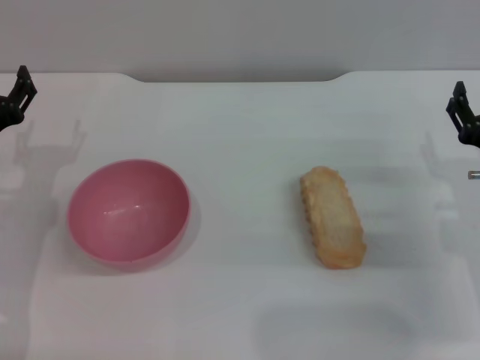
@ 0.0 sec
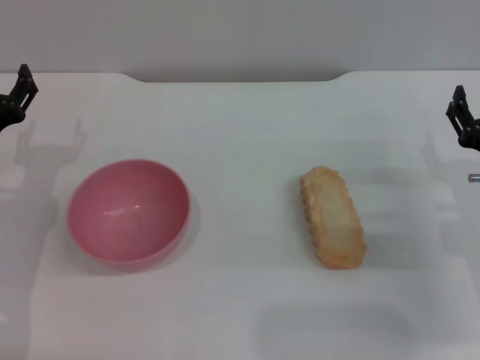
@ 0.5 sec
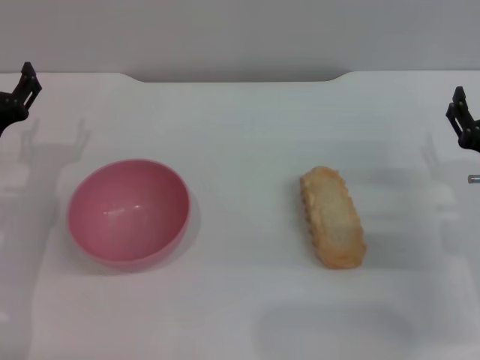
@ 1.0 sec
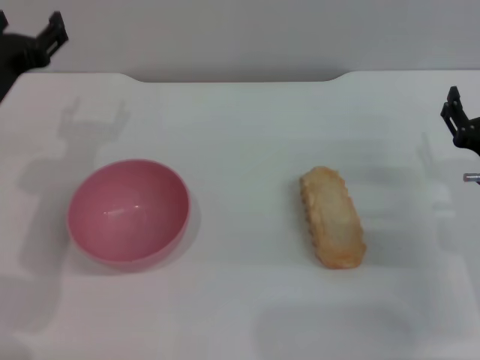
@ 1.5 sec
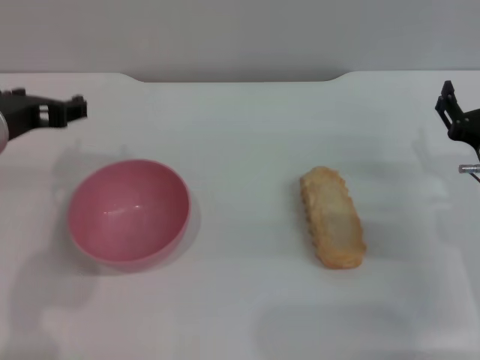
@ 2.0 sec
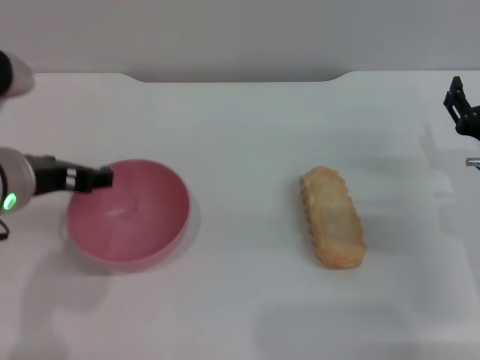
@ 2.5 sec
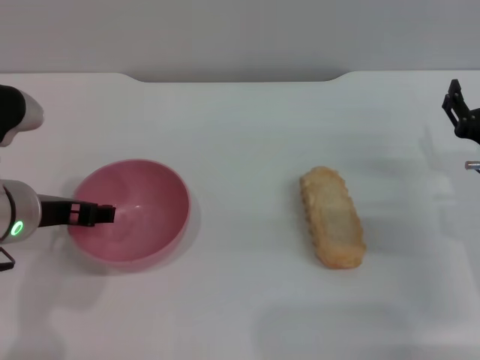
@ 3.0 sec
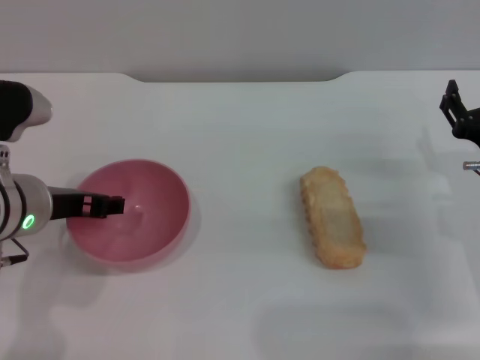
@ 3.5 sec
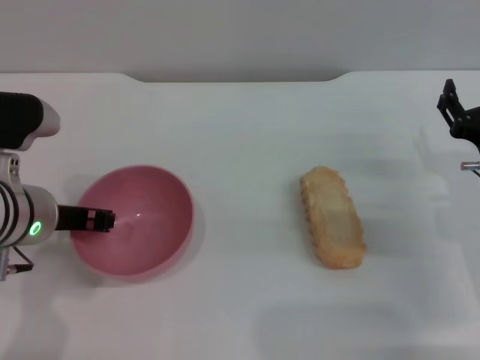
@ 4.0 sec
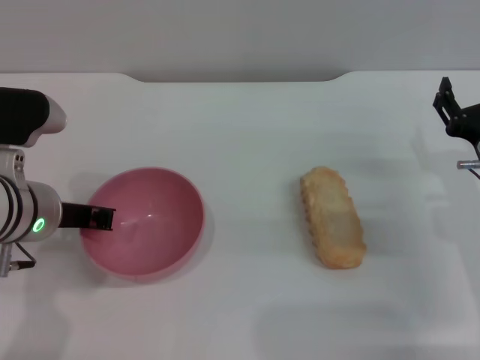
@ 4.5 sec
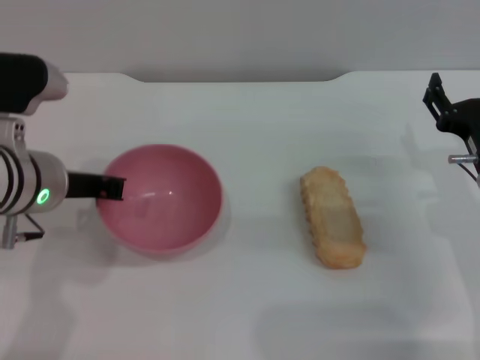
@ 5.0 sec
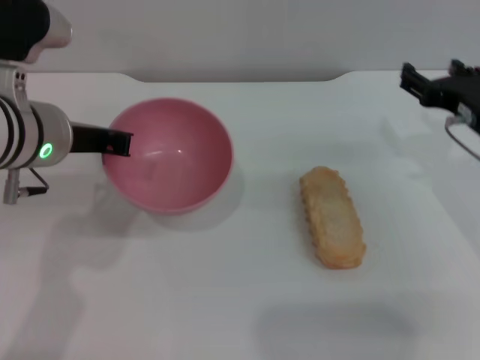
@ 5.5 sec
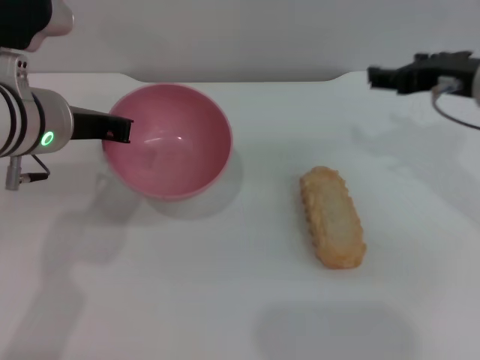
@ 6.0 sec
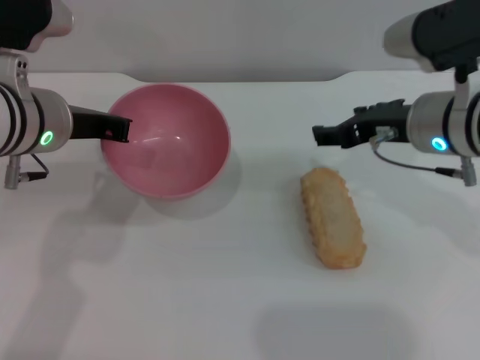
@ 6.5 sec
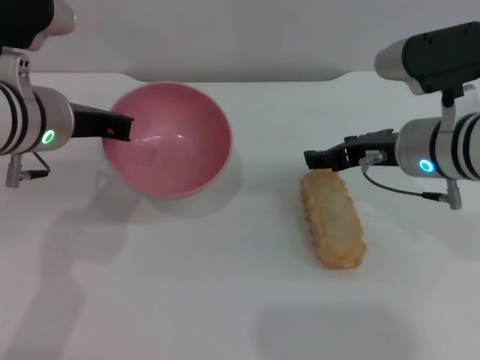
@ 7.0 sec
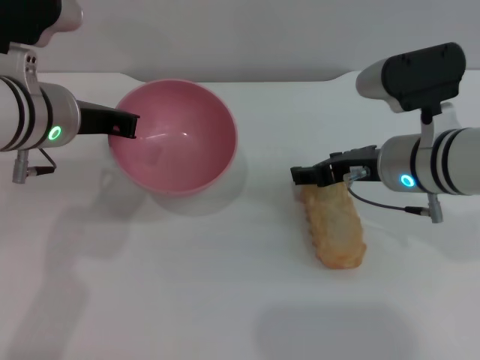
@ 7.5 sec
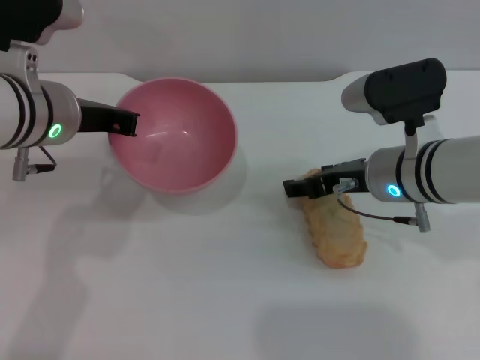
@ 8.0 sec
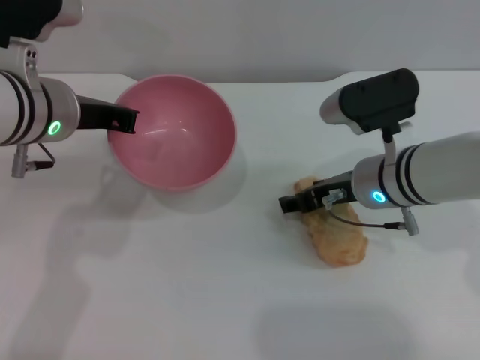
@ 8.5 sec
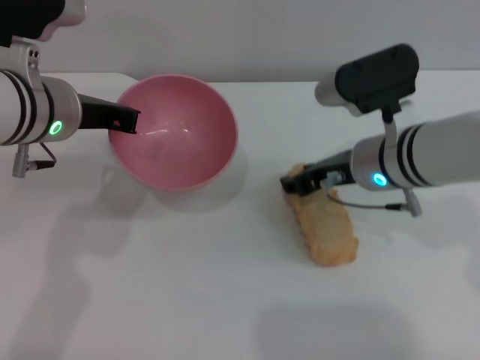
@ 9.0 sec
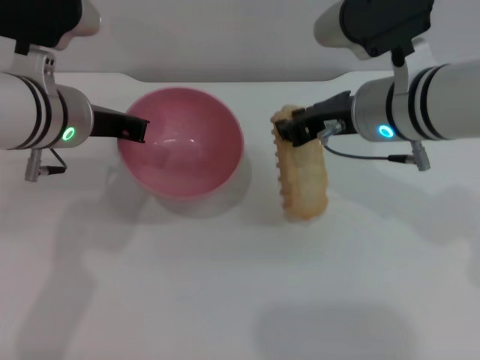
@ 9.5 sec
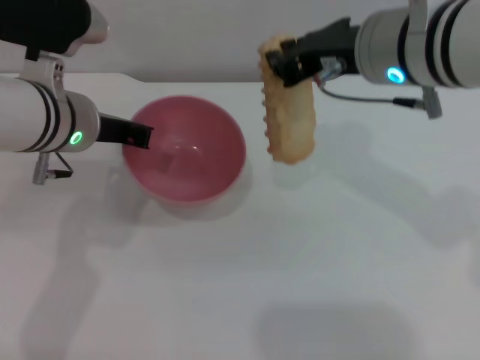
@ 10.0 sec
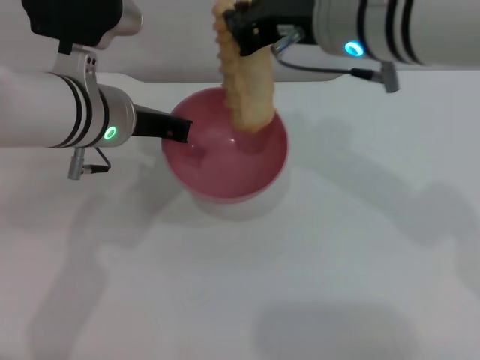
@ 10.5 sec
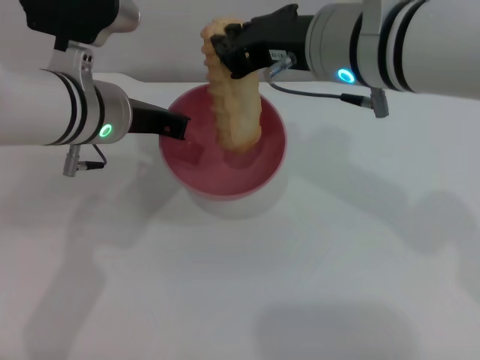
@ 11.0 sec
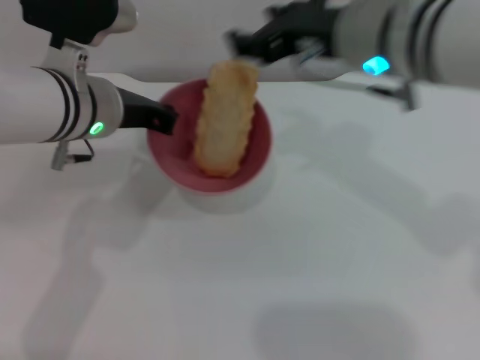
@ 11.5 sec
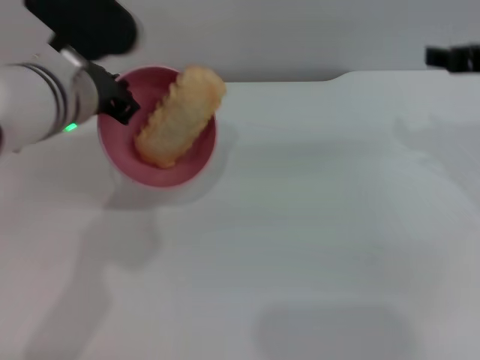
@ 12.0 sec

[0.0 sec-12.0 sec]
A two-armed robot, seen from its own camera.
Task of the whole recording: put the bread into the pink bowl and pour it out repeatedly.
Step, 0.0 sec to 5.0 sec: Pick up the bowl with the left gripper.
Step, 6.0 sec to 9.5 sec: Pick up the bread with the right gripper.
Step, 10.0 sec to 11.5 sec: Place the bread into the bowl.
0.0 sec to 2.0 sec: The left gripper is displaced upward and to the right by roughly 15 cm.
2.0 sec to 4.0 sec: The left gripper is displaced downward by about 5 cm.
4.0 sec to 6.0 sec: The right gripper travels upward by about 15 cm. The left gripper shifts approximately 5 cm upward, and closes up.
6.0 sec to 8.0 sec: The right gripper is displaced downward and to the left by some 10 cm.
8.0 sec to 10.0 sec: The right gripper moves upward, approximately 15 cm, and closes up.
10.0 sec to 12.0 sec: The right gripper heads to the right, covering about 15 cm, and opens up.

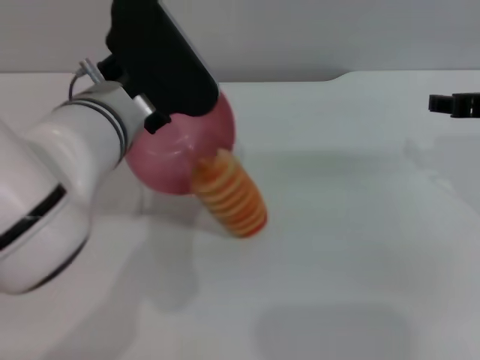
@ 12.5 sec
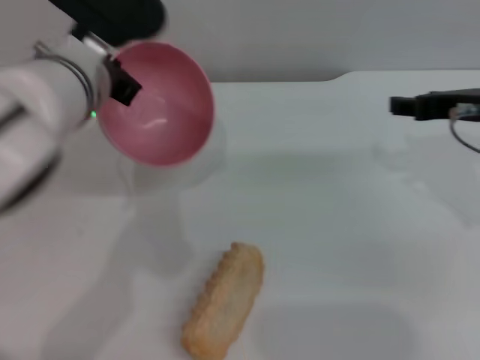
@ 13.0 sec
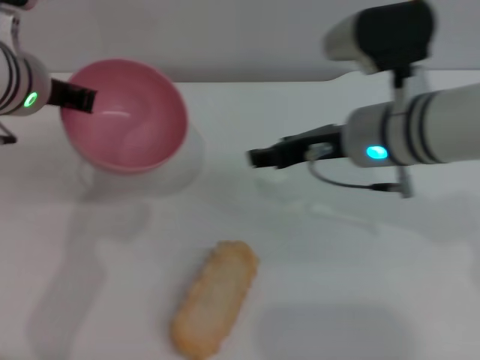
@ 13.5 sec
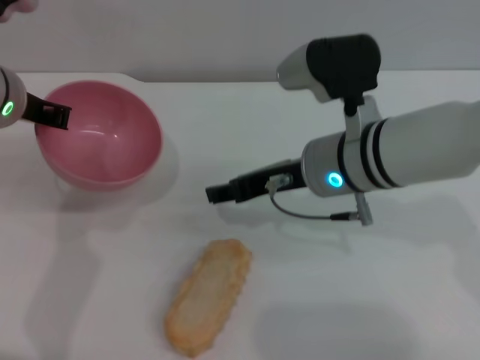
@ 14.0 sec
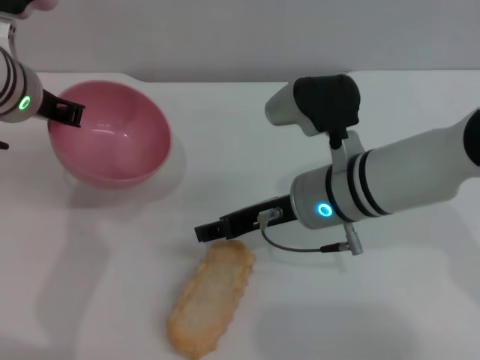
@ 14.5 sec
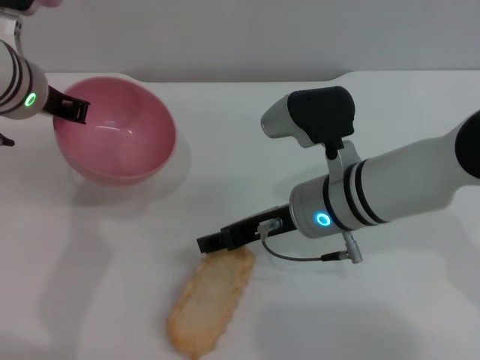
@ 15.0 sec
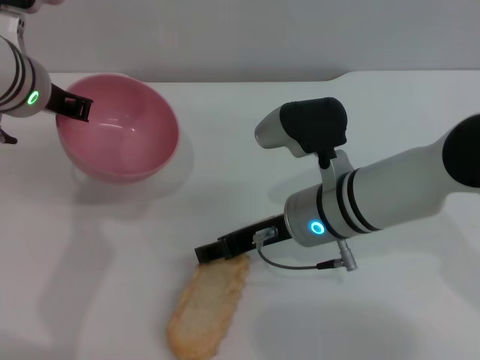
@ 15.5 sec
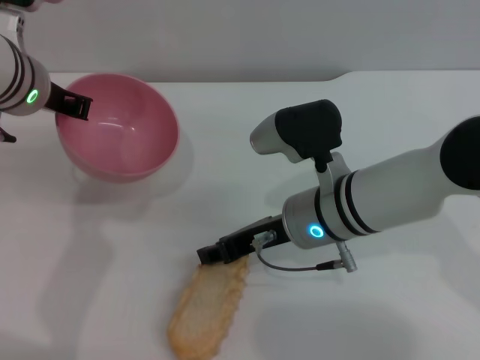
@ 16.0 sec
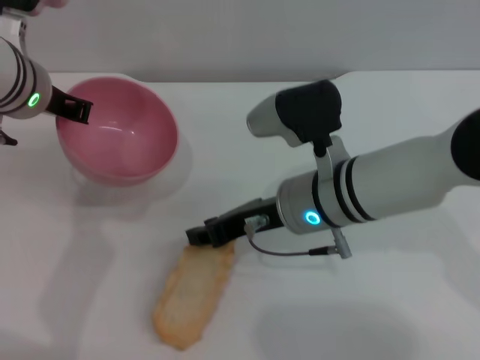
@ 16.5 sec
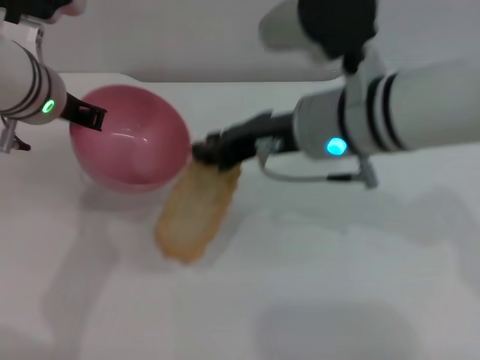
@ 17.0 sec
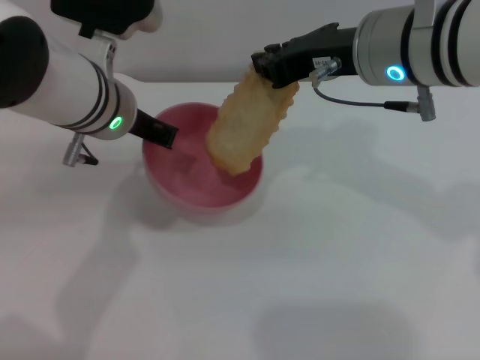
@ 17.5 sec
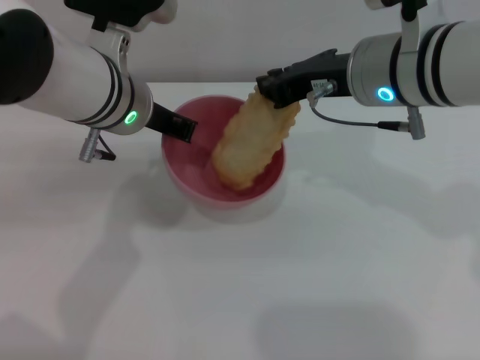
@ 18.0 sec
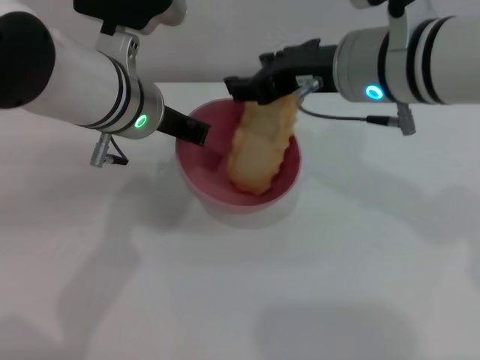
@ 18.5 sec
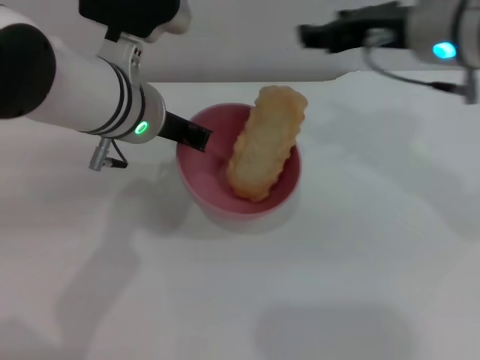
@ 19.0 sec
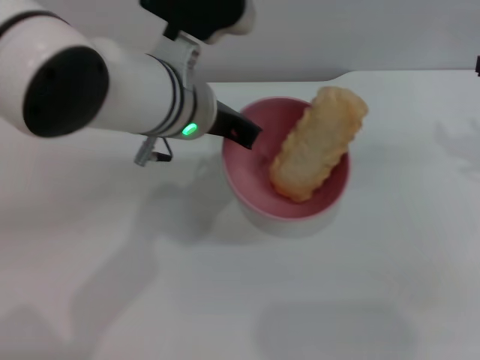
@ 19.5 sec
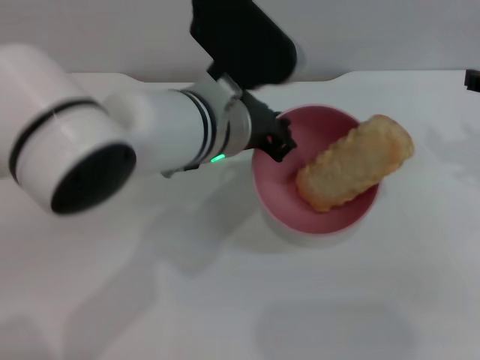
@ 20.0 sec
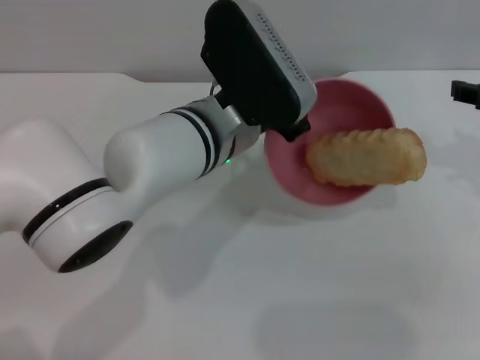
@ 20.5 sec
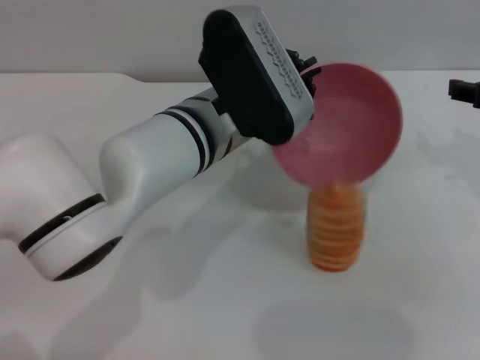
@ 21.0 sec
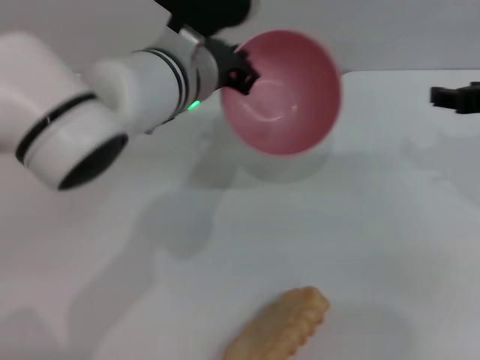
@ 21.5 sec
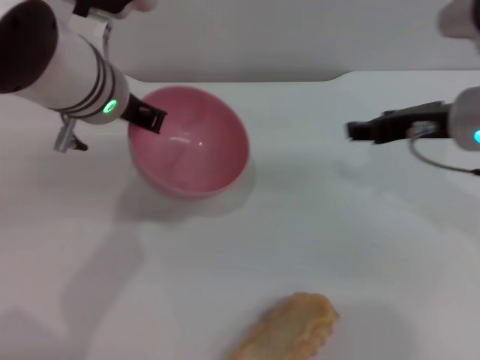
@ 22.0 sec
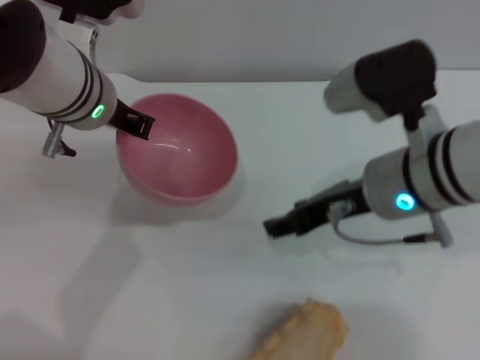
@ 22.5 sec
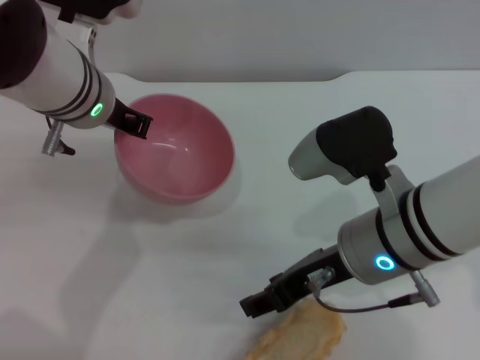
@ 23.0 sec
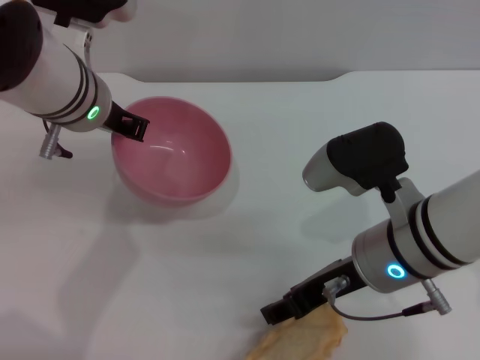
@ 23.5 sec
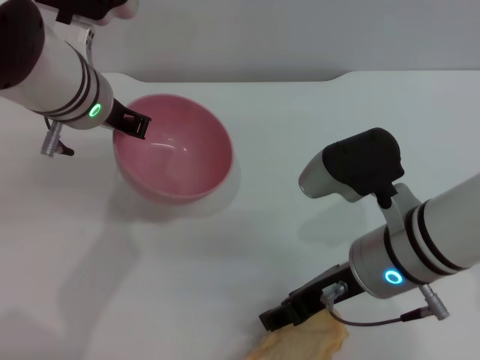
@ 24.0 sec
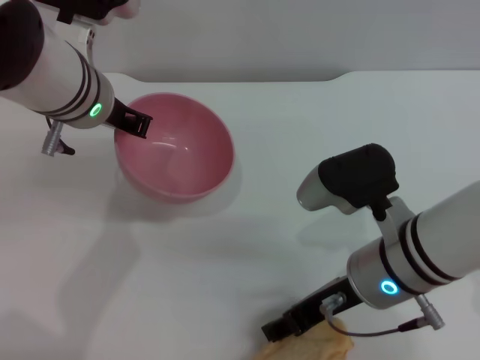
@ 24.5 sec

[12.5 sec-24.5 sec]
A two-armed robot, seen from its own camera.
Task of the whole recording: put the bread into the pink bowl and pour it out repeatedly.
Step, 13.0 sec to 16.5 sec: Pick up the bread with the right gripper.
Step, 17.5 sec to 18.5 sec: Place the bread into the bowl.
Step, 19.0 sec to 21.0 sec: Pour the bread out of the bowl.
12.5 sec to 14.5 sec: The left gripper shifts about 10 cm to the left and forward. Meanwhile the right gripper heads to the left and downward, covering roughly 20 cm.
14.5 sec to 16.5 sec: The right gripper closes up.
16.5 sec to 18.5 sec: The left gripper is displaced to the right by some 10 cm, while the right gripper shifts about 10 cm upward.
18.5 sec to 20.5 sec: The right gripper goes about 20 cm to the right, while the left gripper is displaced to the right by approximately 5 cm.
20.5 sec to 22.5 sec: The left gripper shifts approximately 10 cm to the left. Meanwhile the right gripper heads to the left, covering approximately 15 cm.
22.5 sec to 24.5 sec: The right gripper travels downward by about 5 cm.

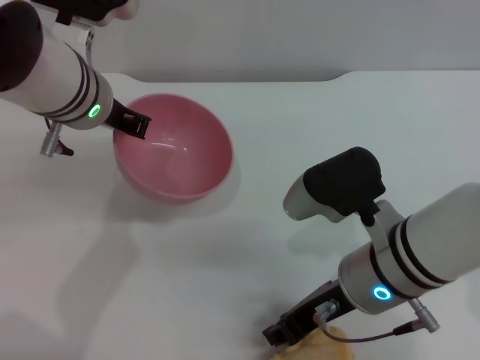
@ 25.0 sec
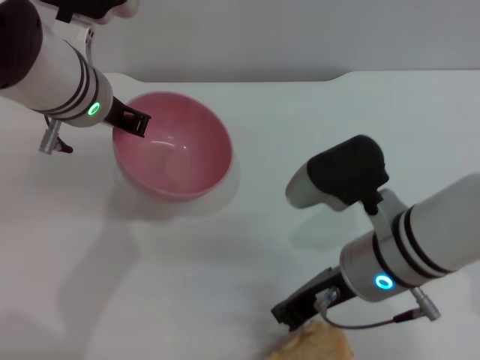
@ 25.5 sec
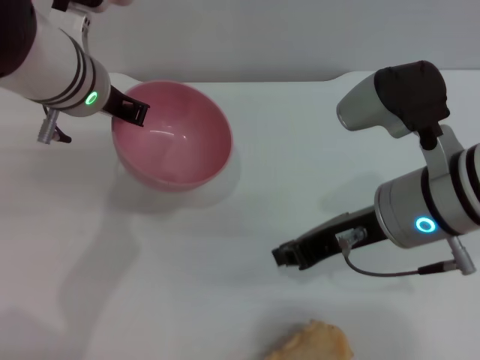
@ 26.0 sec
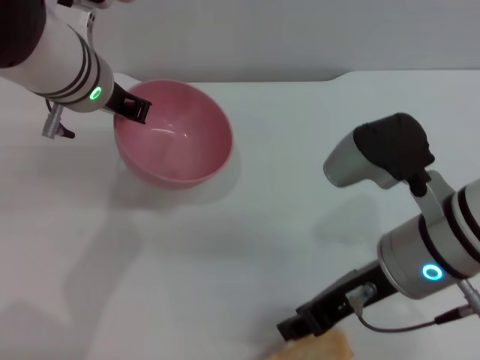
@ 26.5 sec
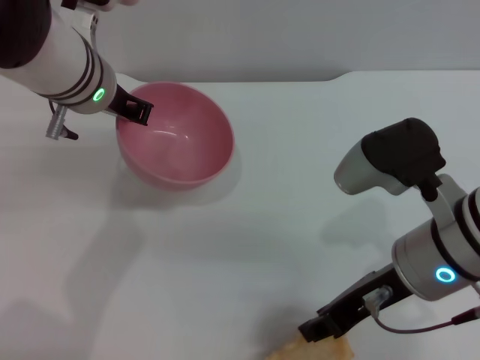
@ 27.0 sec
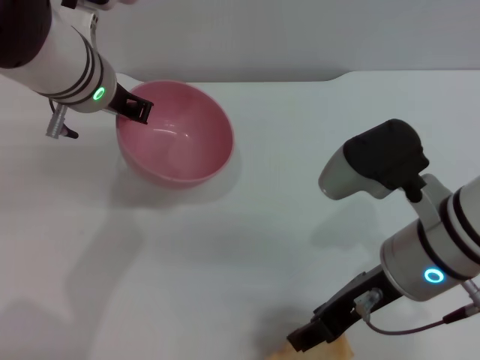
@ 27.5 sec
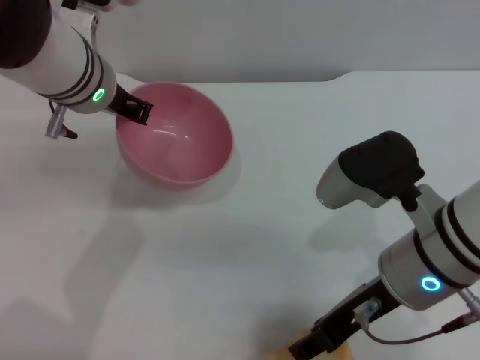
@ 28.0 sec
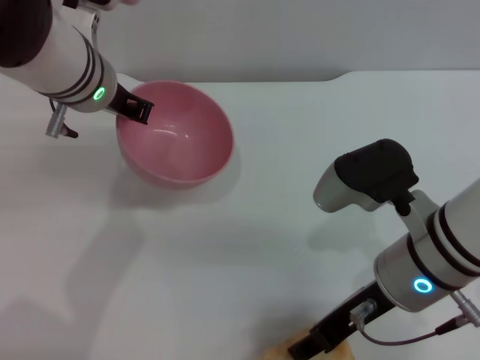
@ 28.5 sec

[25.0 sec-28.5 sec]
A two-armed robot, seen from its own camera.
Task of the whole recording: put the bread into the pink bowl and pour it out repeatedly.
25.0 sec to 27.0 sec: The right gripper moves some 5 cm, and closes and opens again.
27.0 sec to 28.5 sec: There are only small adjustments of the grippers.
